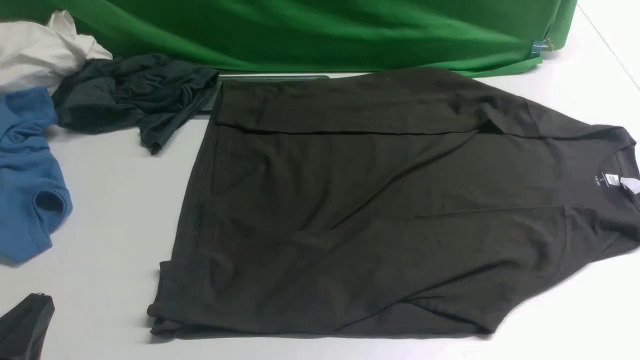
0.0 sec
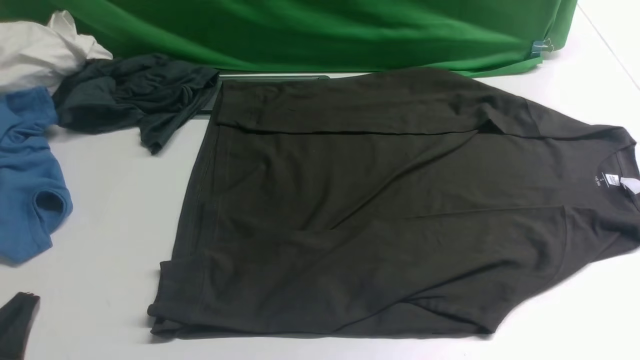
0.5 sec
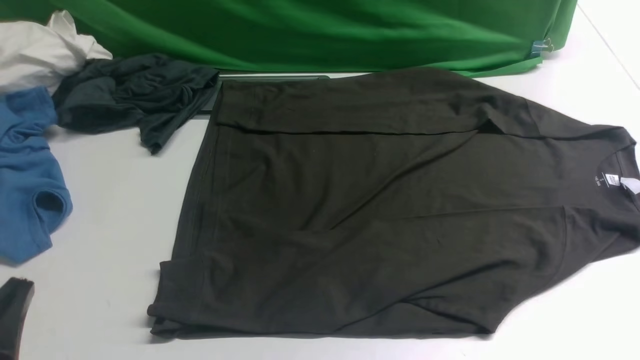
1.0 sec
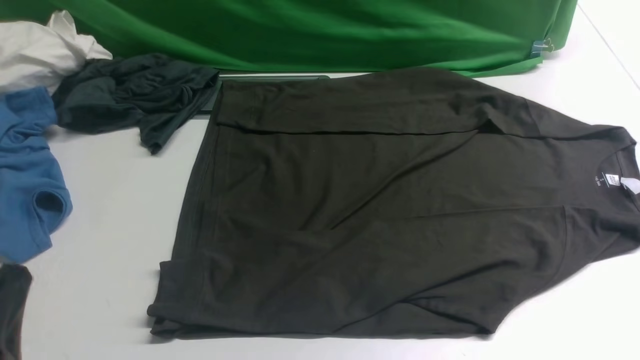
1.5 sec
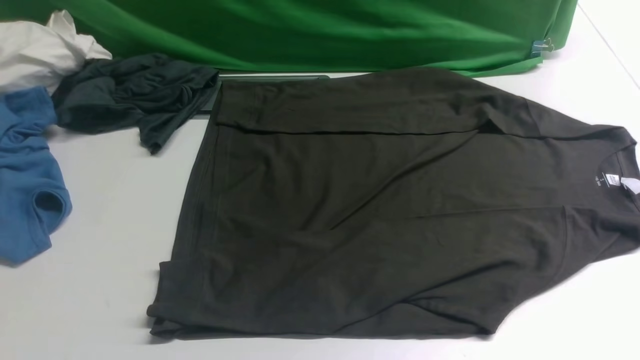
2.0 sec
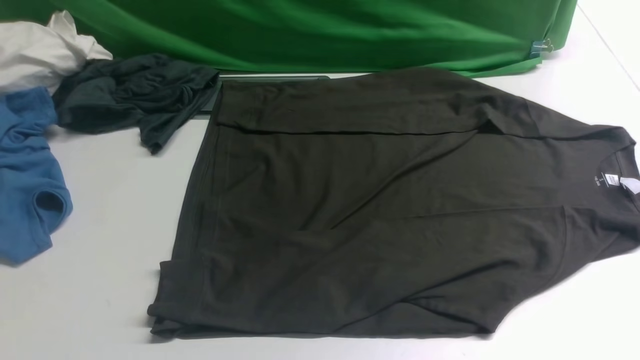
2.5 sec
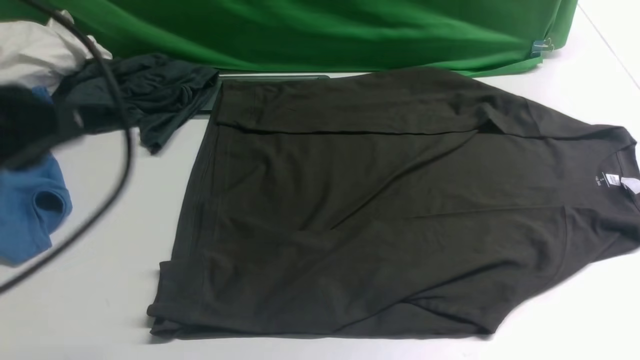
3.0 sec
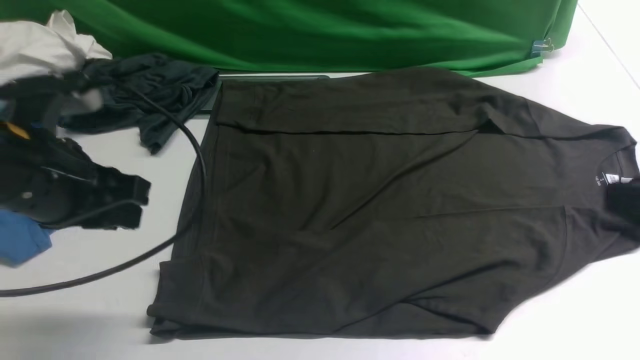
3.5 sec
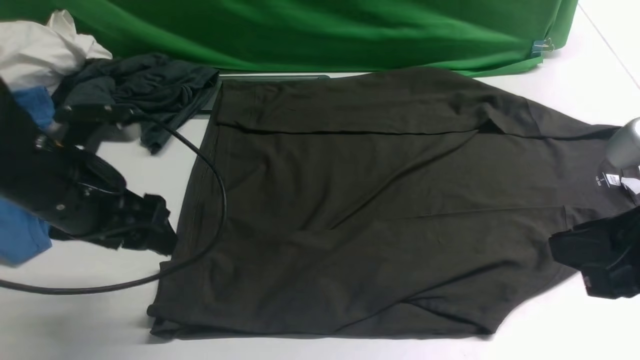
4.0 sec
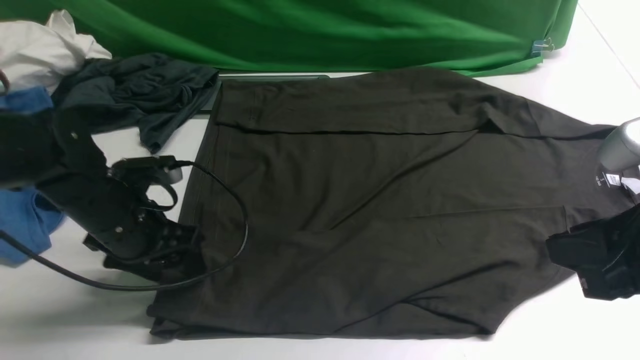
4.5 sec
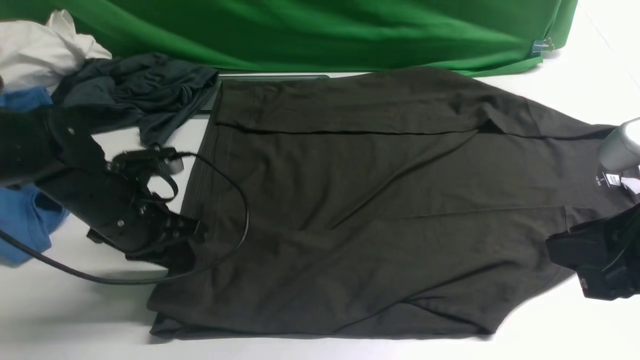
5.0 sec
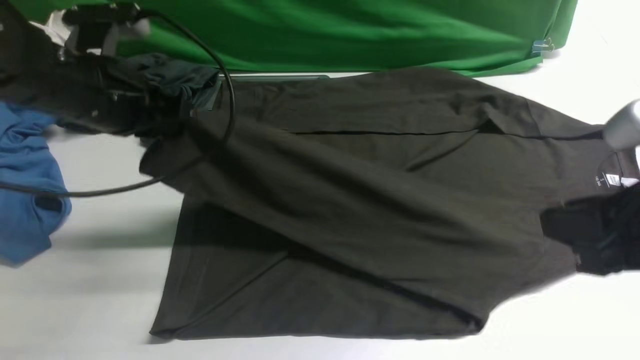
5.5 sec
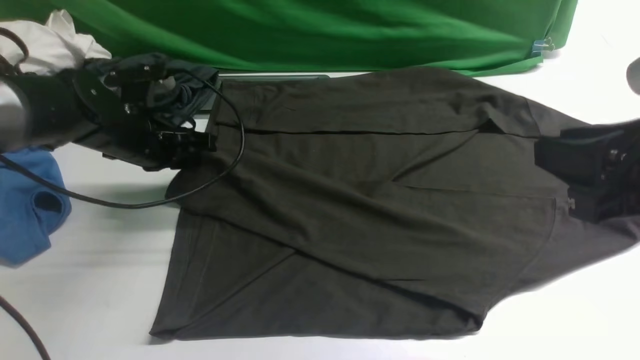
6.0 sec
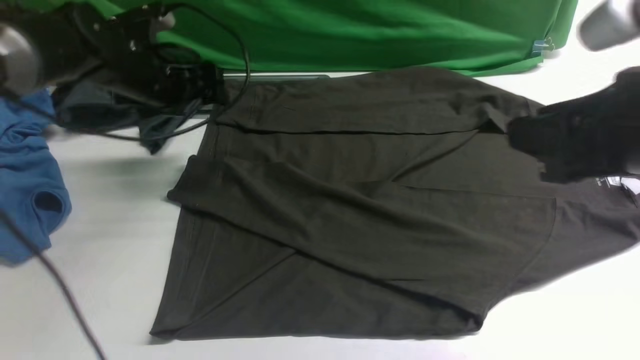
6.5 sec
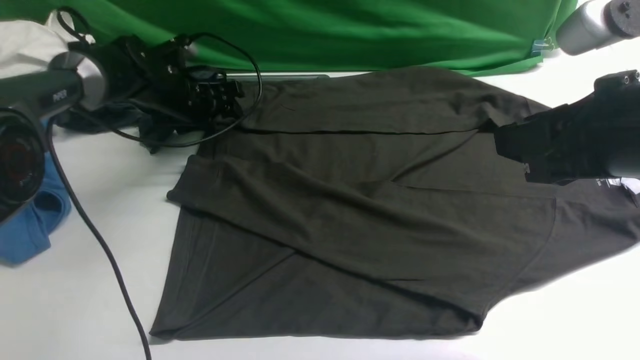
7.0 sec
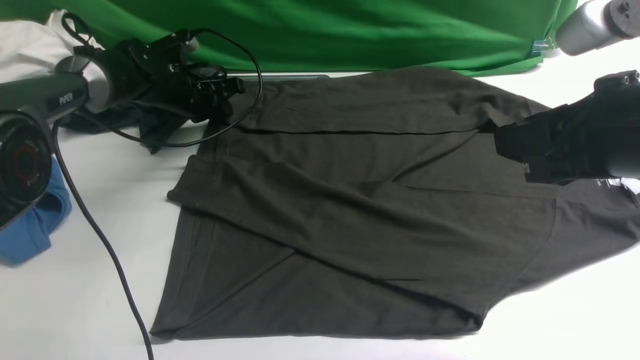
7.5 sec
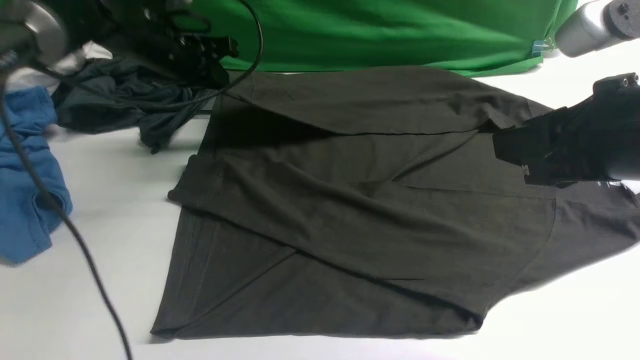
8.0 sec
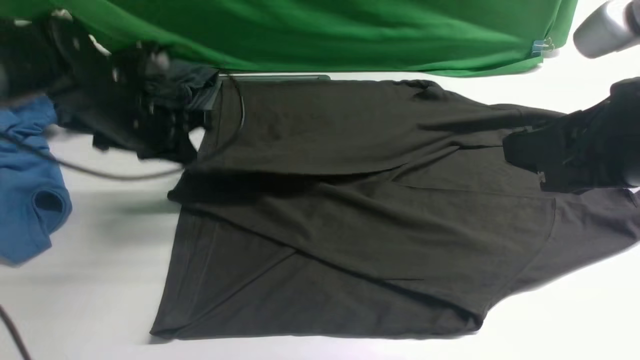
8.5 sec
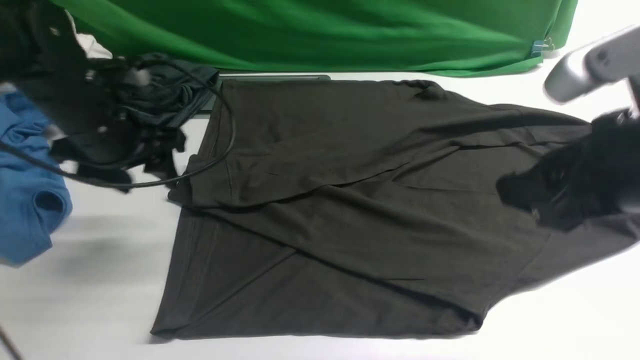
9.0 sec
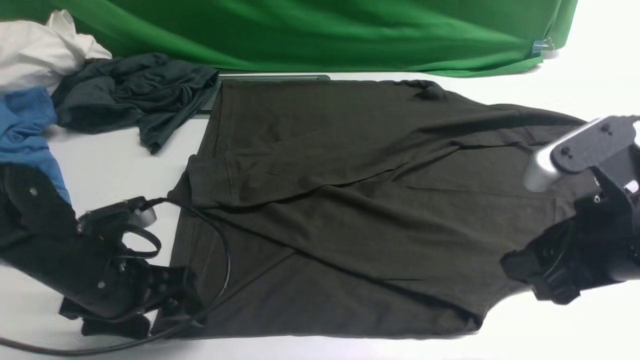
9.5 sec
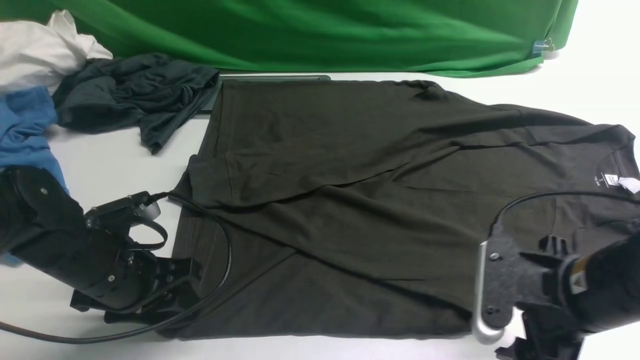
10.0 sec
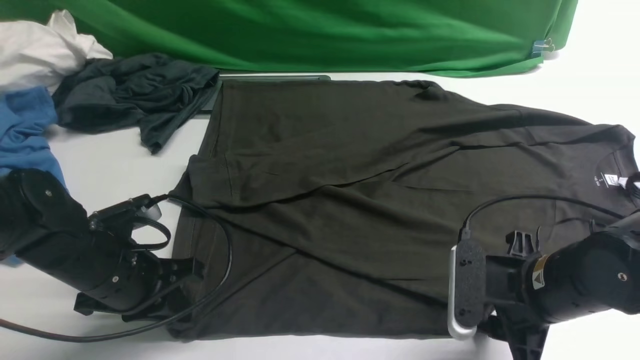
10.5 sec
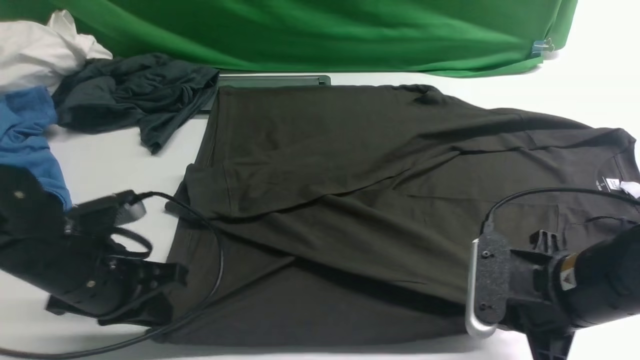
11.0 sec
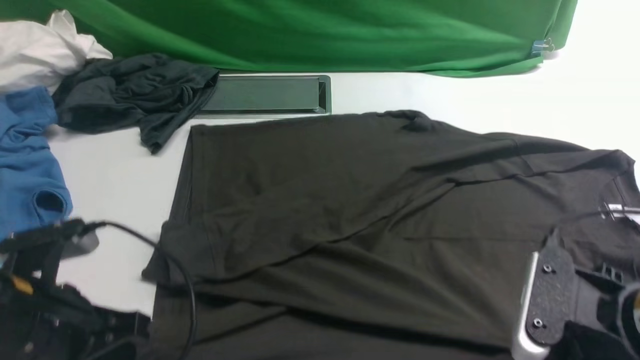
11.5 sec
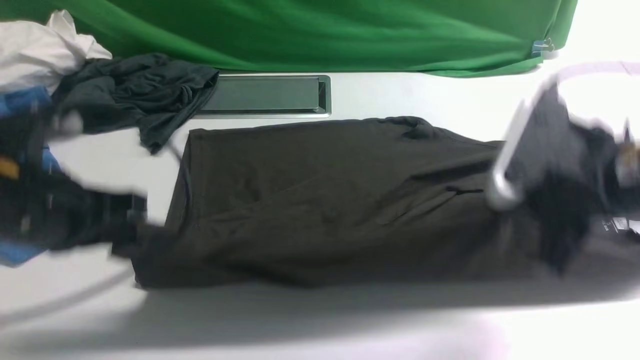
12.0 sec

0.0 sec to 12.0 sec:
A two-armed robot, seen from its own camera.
Step, 0.0 sec to 5.0 sec: use the left arm to clamp the cuff closest to it.
Step, 5.5 sec to 6.0 sec: use the left arm to drag and place the cuff at the centered position on the left edge of the fabric.
Step, 6.5 sec to 7.5 sec: use the left arm to clamp the cuff farthest from it.
Step, 8.0 sec to 8.5 sec: use the left arm to drag and drop the cuff onto the cuff closest to the left arm.
Step, 9.0 sec to 11.0 sec: use both arms simultaneously to clamp the lower edge of the clothing fabric.
0.0 sec to 2.0 sec: The left gripper travels upward by about 10 cm.
2.0 sec to 4.0 sec: The left gripper travels forward by roughly 20 cm, and opens up; the right gripper moves forward and to the left, about 15 cm, and goes upward and returns, some 15 cm each way.
4.0 sec to 6.0 sec: The left gripper is displaced forward by some 15 cm, and closes up.
6.0 sec to 8.0 sec: The left gripper shifts some 10 cm forward, and opens and closes again.
8.0 sec to 10.0 sec: The right gripper moves downward, about 15 cm, and opens its fingers. The left gripper shifts approximately 25 cm backward, and opens its fingers.
10.0 sec to 12.0 sec: The two grippers go some 10 cm upward. The right gripper closes. Meanwhile the left gripper closes up.

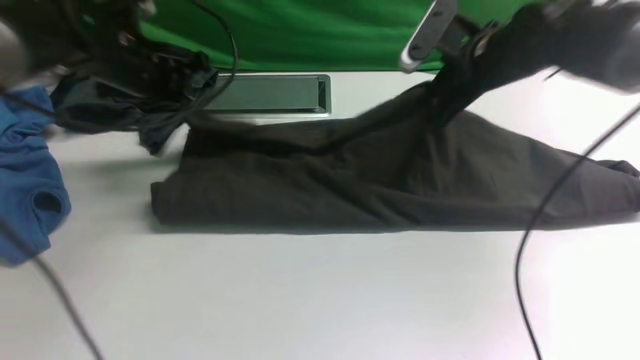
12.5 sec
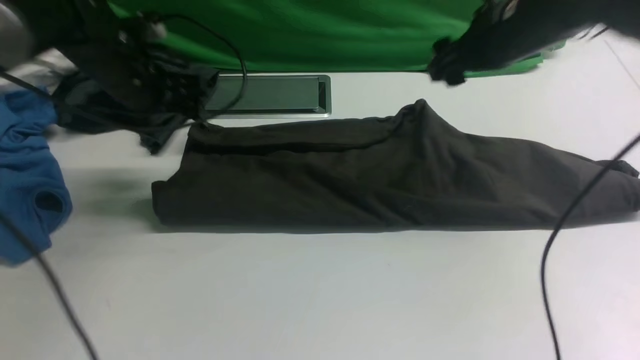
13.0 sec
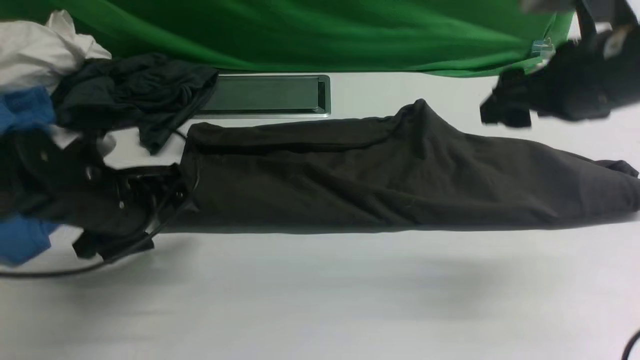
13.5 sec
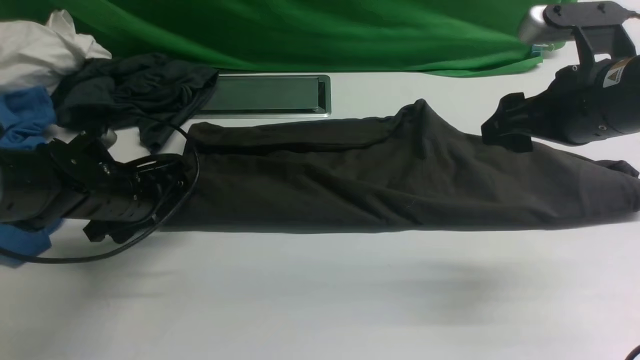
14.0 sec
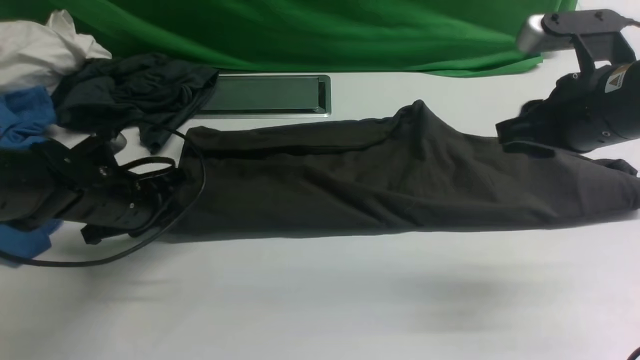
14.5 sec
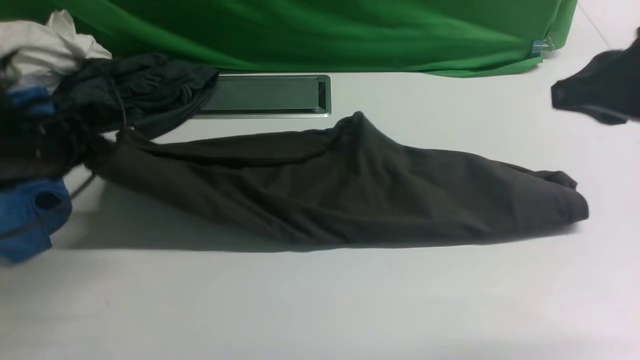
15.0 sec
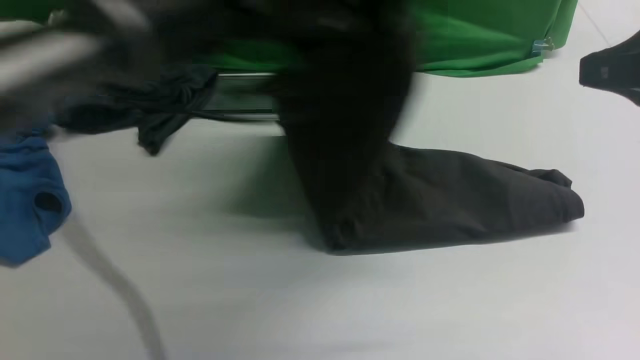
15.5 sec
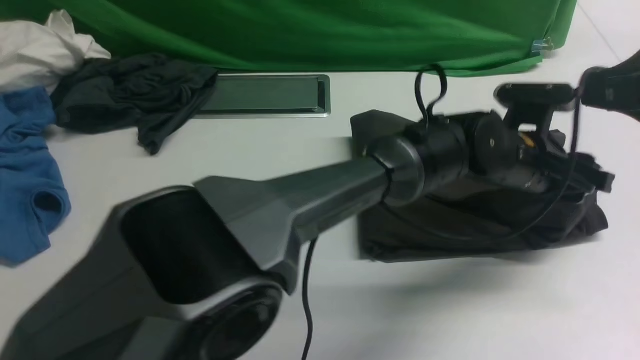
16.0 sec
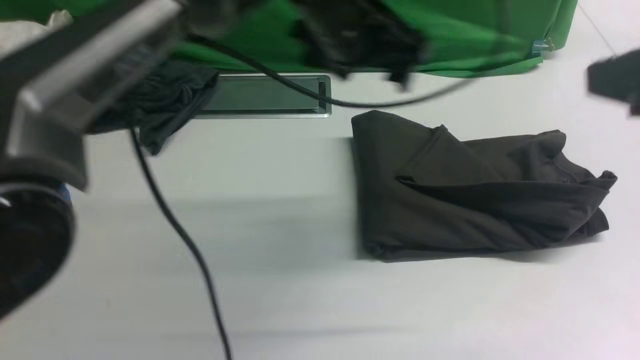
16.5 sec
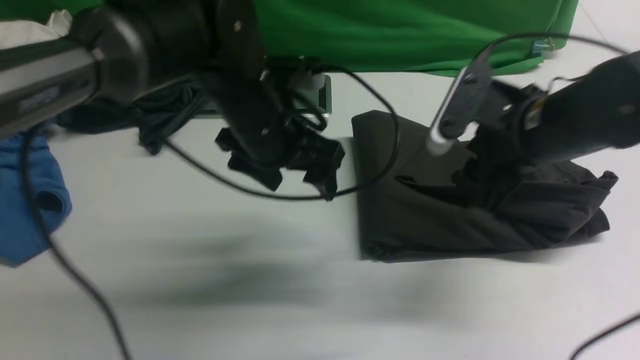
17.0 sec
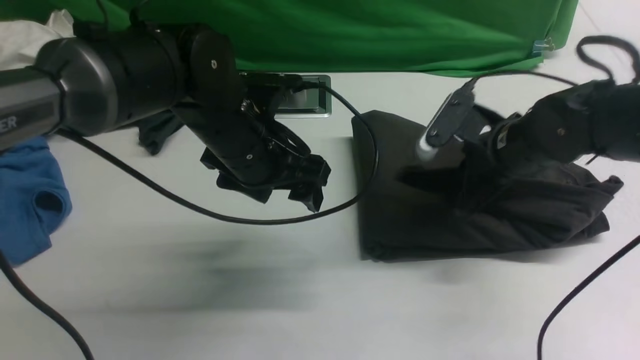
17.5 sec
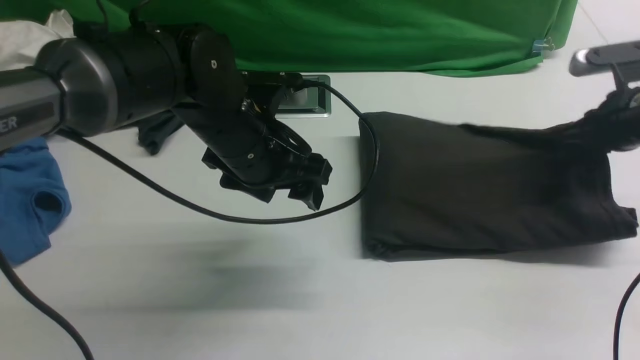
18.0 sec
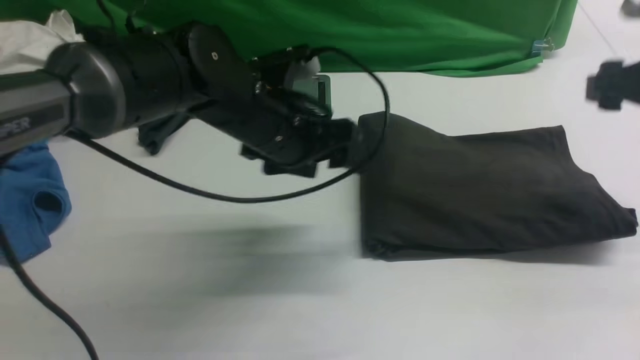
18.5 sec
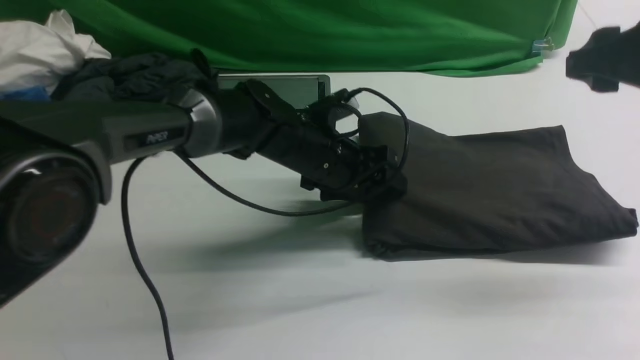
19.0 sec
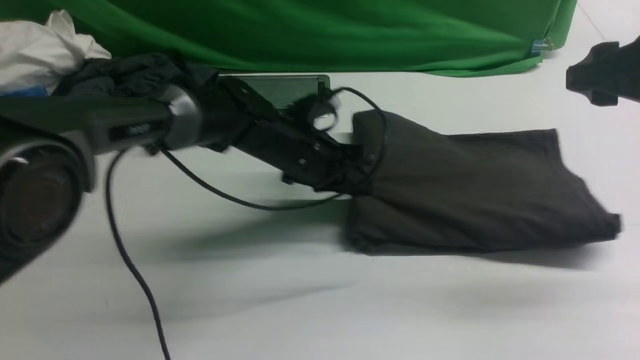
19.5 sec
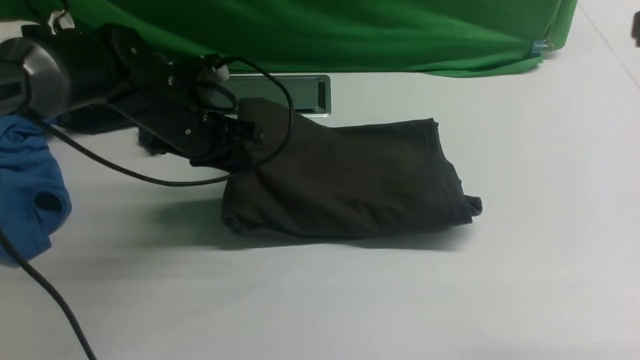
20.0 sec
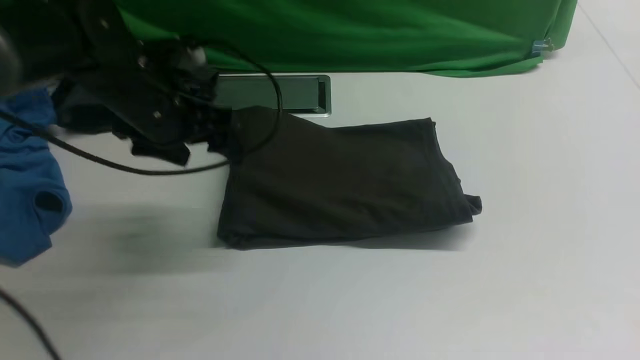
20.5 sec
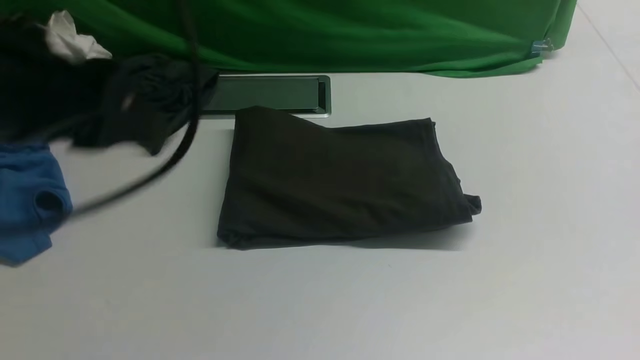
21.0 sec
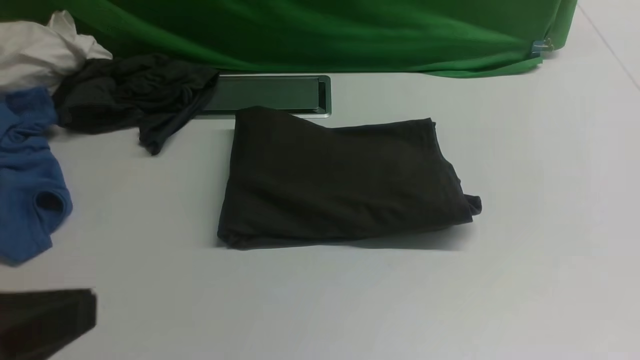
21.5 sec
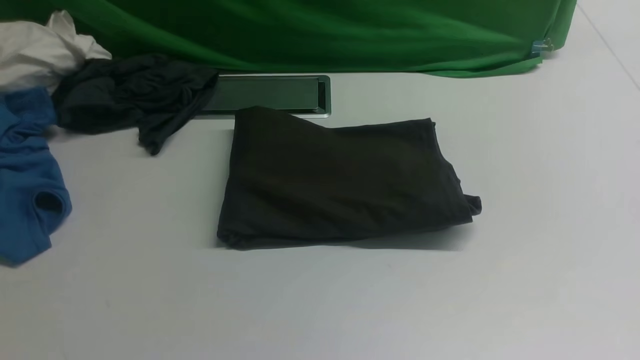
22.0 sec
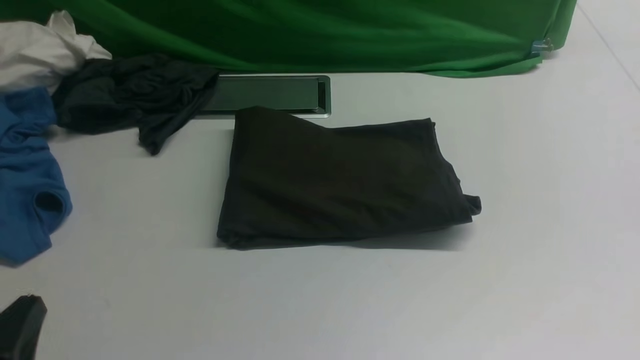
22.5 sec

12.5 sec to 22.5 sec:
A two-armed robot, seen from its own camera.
Step, 13.5 sec to 14.5 sec: Hold the left edge of the fabric with your left arm.
Step, 15.0 sec to 16.0 sec: Drag the left edge of the fabric to the left with your left arm and fold it to the right edge.
12.5 sec to 14.5 sec: The right gripper heads backward and upward, covering roughly 15 cm, and opens and closes again. Meanwhile the left gripper is displaced backward and downward by some 15 cm, and opens, then closes again.
14.5 sec to 16.5 sec: The right gripper moves upward and backward, approximately 10 cm. The left gripper goes some 30 cm to the right and upward, and opens up.
16.5 sec to 18.5 sec: The right gripper goes about 20 cm forward, downward and to the right, and opens its fingers; the left gripper is displaced downward and to the left by roughly 10 cm.
18.5 sec to 20.5 sec: The left gripper goes about 15 cm to the left and upward, and closes, then reopens; the right gripper travels backward by approximately 20 cm, and closes up.
20.5 sec to 22.5 sec: The right gripper travels backward and downward by about 10 cm. Meanwhile the left gripper travels backward by approximately 30 cm, and closes up.
